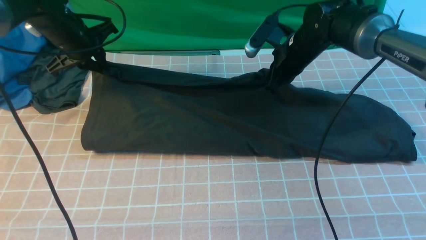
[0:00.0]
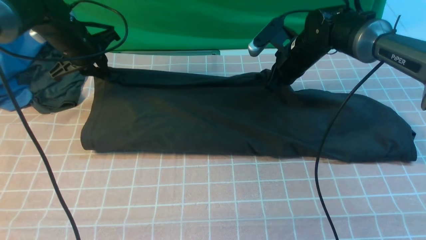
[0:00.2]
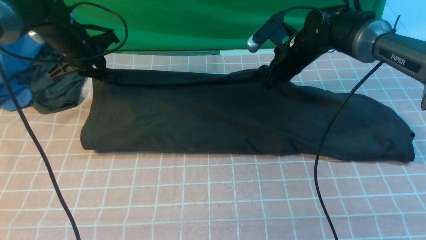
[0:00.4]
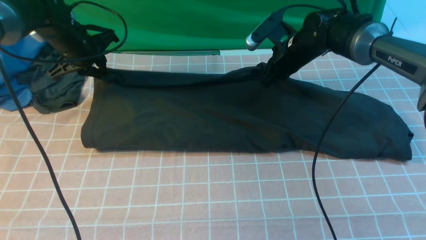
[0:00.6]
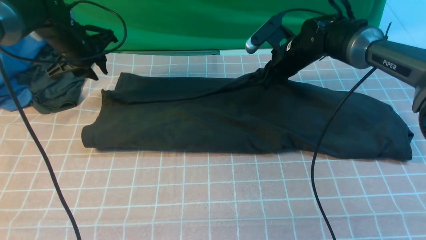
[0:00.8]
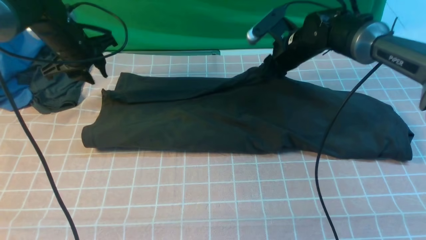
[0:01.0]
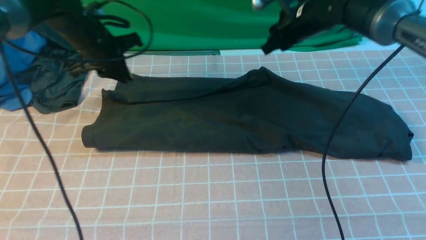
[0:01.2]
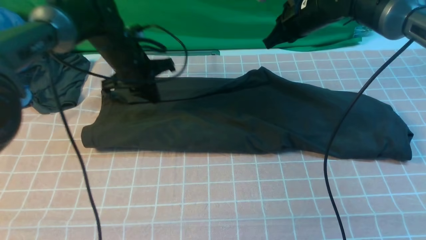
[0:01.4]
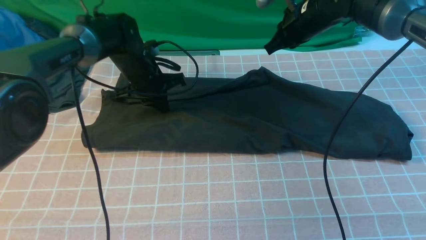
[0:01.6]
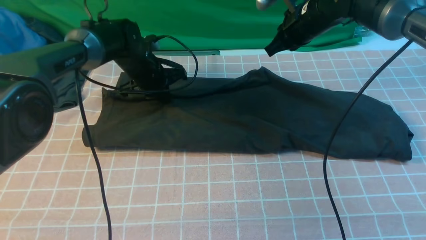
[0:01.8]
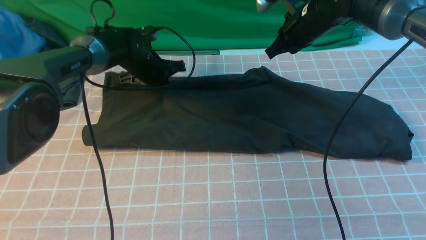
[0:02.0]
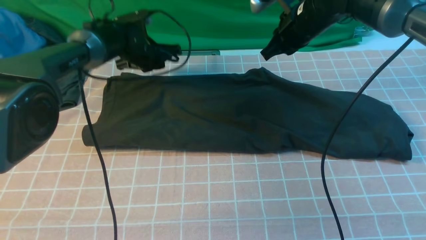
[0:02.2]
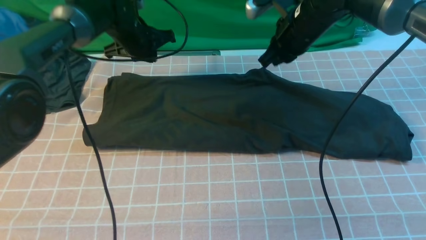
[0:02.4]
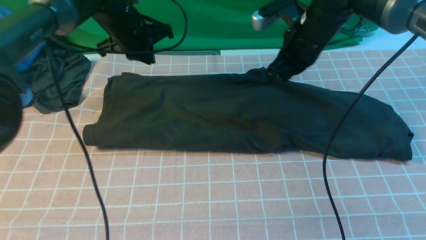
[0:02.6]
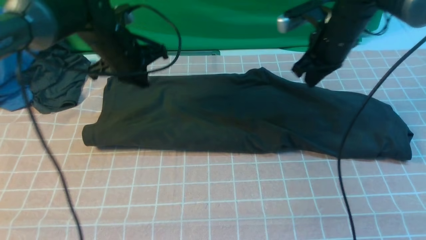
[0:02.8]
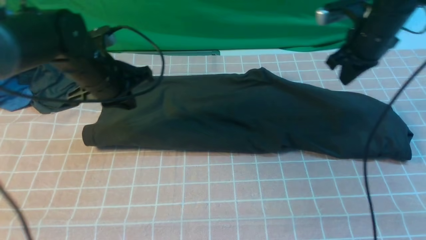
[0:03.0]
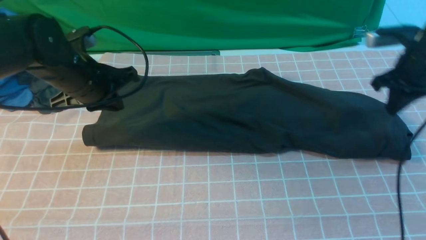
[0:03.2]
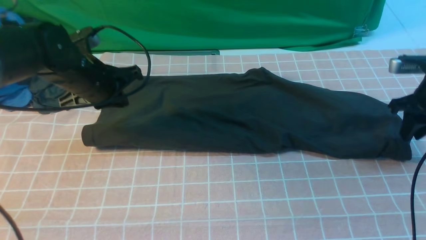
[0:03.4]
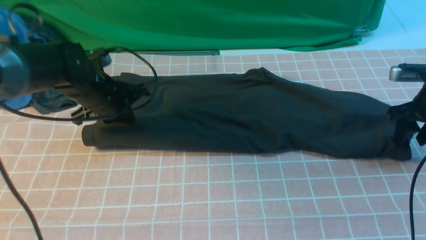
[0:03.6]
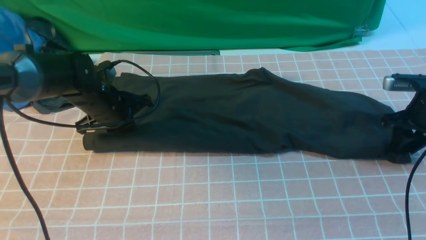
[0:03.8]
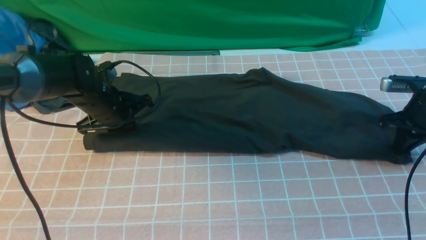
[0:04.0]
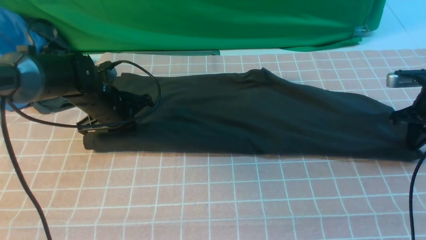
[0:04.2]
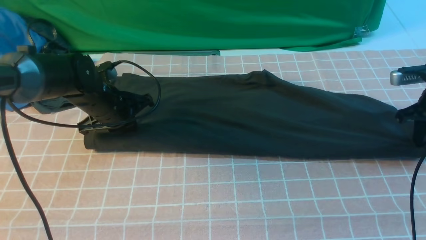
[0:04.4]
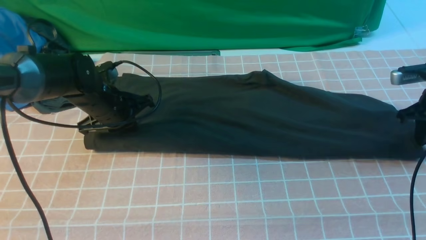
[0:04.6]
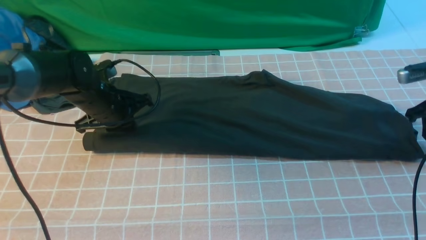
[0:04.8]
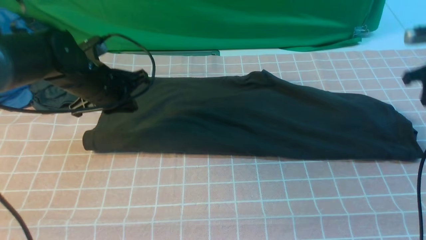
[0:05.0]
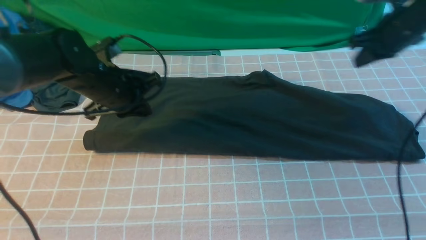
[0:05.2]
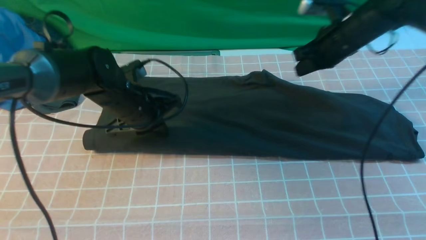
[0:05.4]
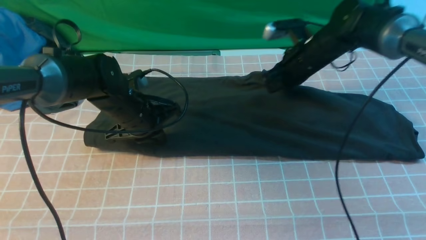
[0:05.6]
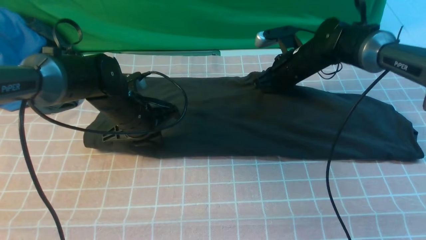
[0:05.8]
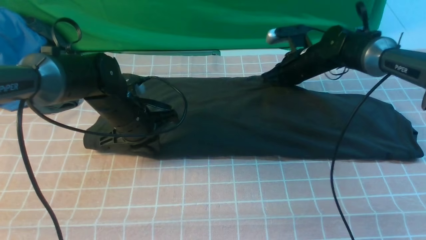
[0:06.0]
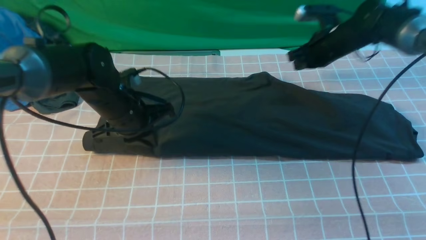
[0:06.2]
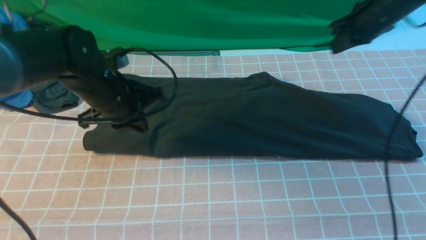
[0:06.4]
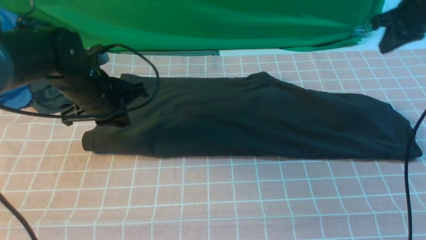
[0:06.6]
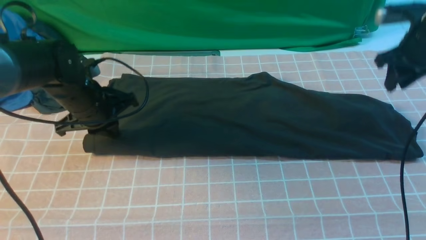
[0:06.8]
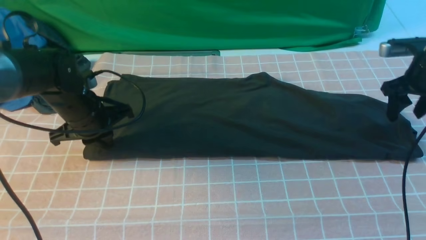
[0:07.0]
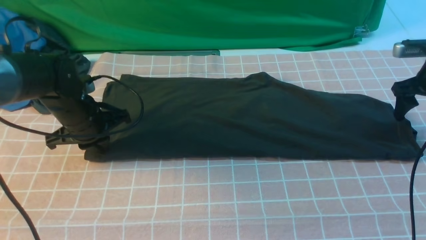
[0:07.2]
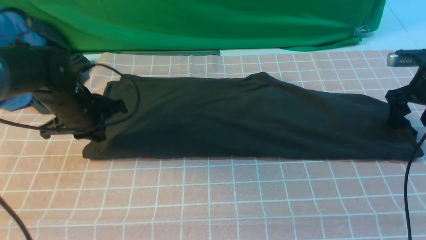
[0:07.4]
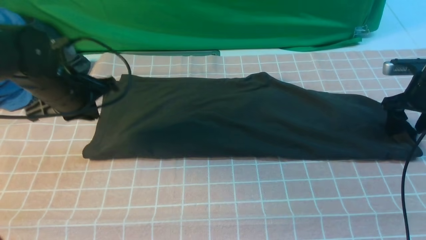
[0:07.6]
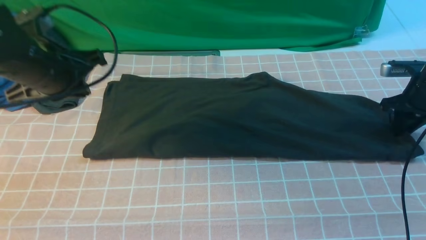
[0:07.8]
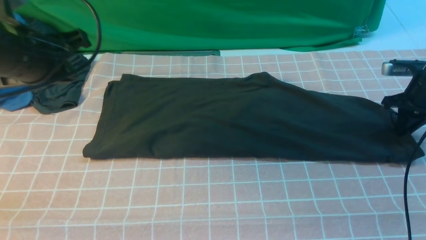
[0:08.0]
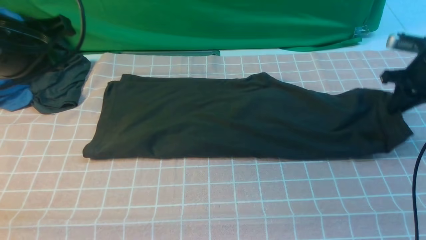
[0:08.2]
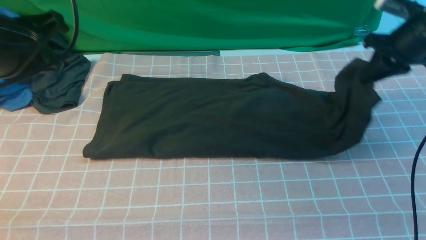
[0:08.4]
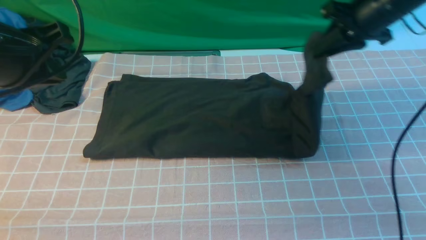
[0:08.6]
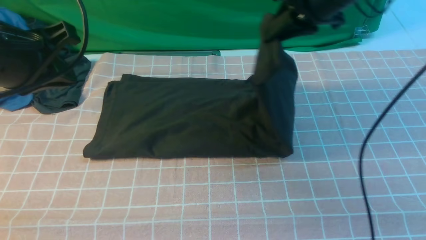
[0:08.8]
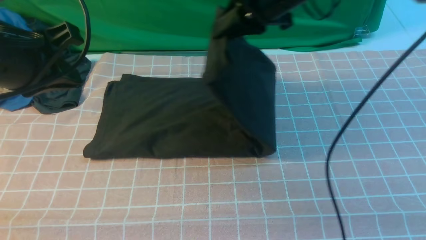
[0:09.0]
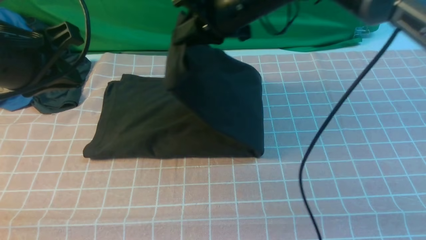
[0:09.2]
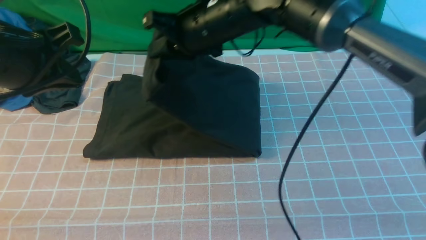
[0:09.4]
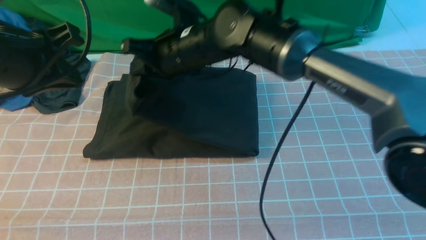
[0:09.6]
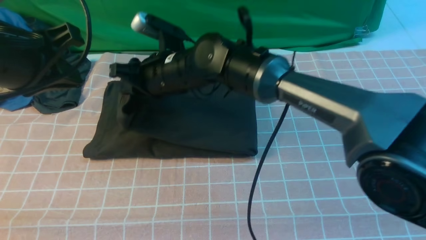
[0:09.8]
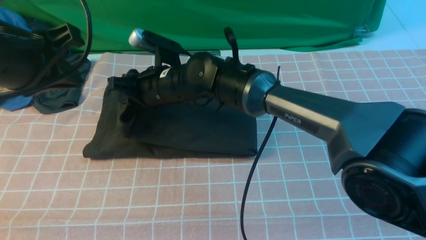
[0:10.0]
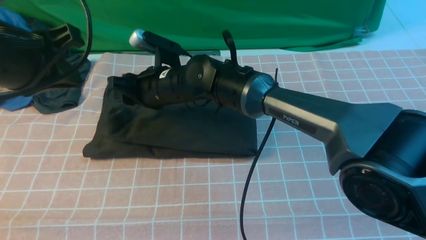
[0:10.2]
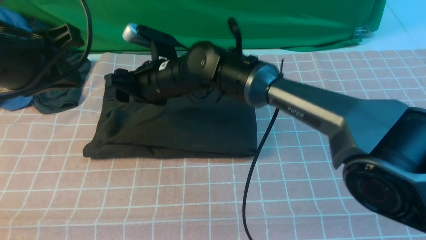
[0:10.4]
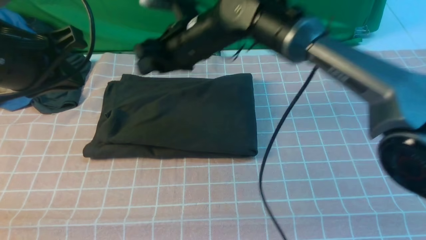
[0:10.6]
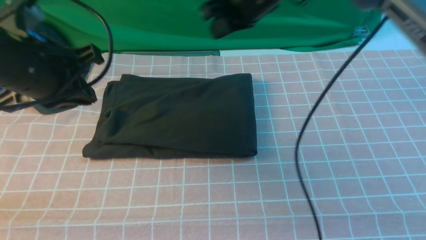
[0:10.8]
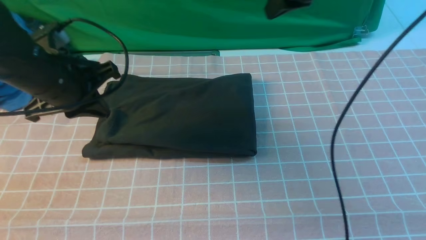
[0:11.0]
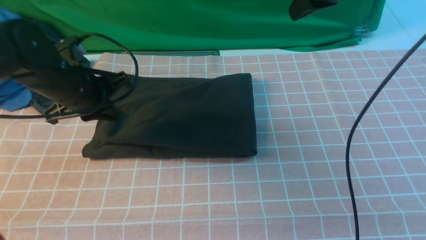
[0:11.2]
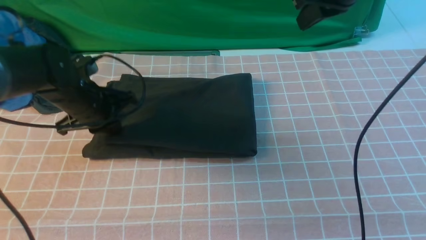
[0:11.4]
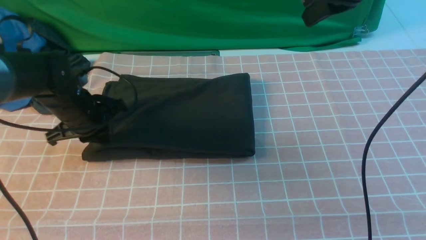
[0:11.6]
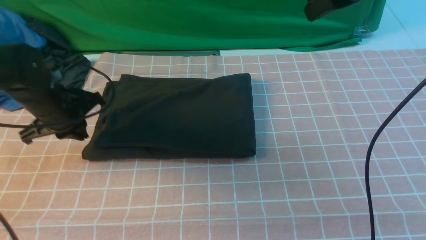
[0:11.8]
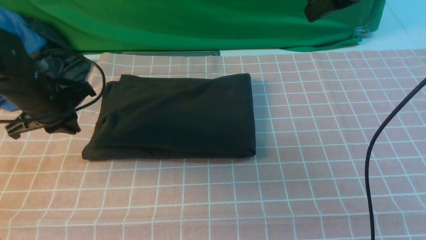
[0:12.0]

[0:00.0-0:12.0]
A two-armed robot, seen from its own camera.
Step, 0:00.0 to 0:02.2: use both arms to drag the lower edge of the fabric forward and fold it over the upper edge.
Step, 0:02.4 to 0:08.0: use the right arm to clamp the right edge of the fabric.
Step, 0:08.2 to 0:10.4: use the right arm to drag the right edge of the fabric to the left and folds it over the left edge.
0:00.0 to 0:01.6: The right gripper goes approximately 5 cm upward, and opens, then closes once more; the left gripper moves to the right and downward, some 15 cm.
0:01.6 to 0:03.0: The left gripper is displaced backward and upward by some 10 cm. The right gripper shifts about 10 cm to the right and backward.
0:03.0 to 0:04.4: The right gripper travels to the right and downward by roughly 15 cm, and opens and closes again. Meanwhile the left gripper heads downward, covering approximately 10 cm.
0:04.4 to 0:06.0: The right gripper travels to the left and forward by roughly 20 cm, while the left gripper shifts by some 5 cm.
0:06.0 to 0:07.6: The right gripper goes some 20 cm to the right and backward, and opens its fingers, while the left gripper moves up and down over approximately 10 cm, changing direction 2 times.
0:07.6 to 0:09.0: The left gripper moves upward and backward, about 15 cm. Meanwhile the right gripper shifts approximately 35 cm to the left and upward, and closes its fingers.
0:09.0 to 0:10.4: The right gripper heads to the left and downward, covering approximately 20 cm, and opens its fingers.
0:10.4 to 0:12.0: The left gripper heads downward and forward, covering about 20 cm, while the right gripper goes about 30 cm to the right and upward, and closes up.

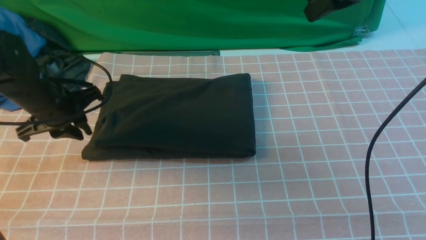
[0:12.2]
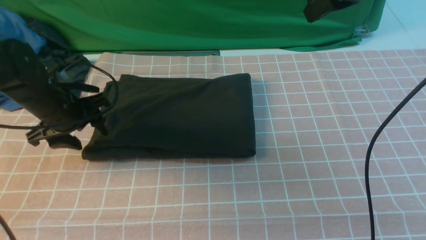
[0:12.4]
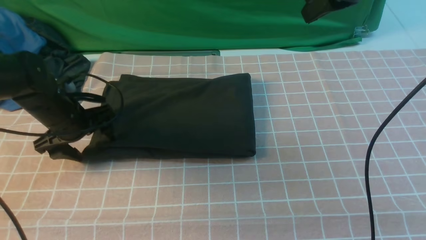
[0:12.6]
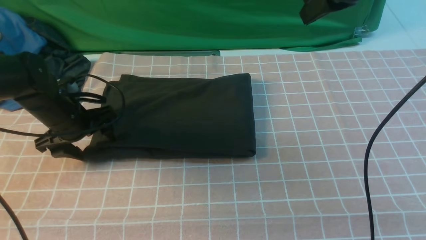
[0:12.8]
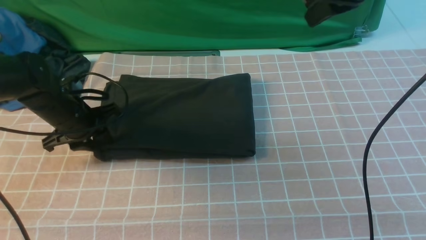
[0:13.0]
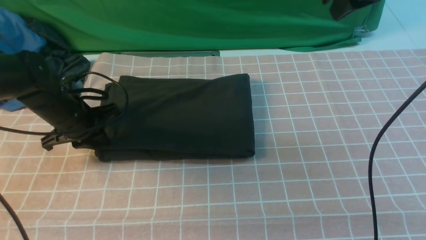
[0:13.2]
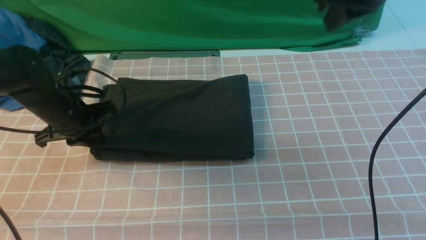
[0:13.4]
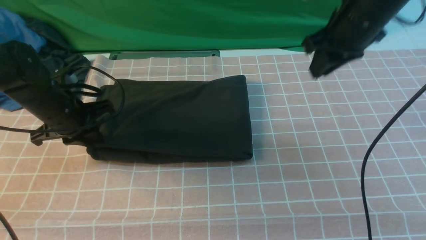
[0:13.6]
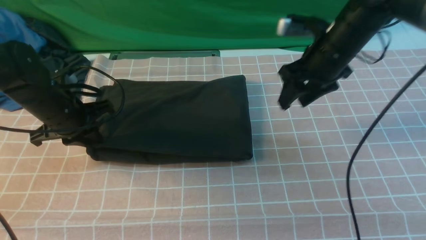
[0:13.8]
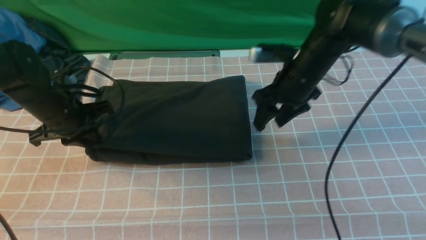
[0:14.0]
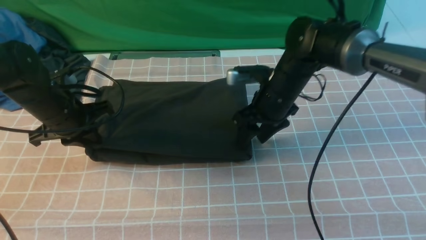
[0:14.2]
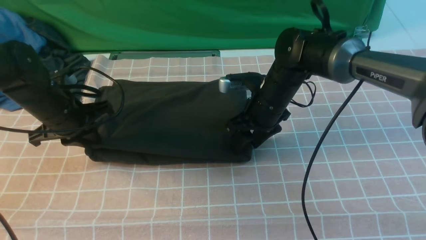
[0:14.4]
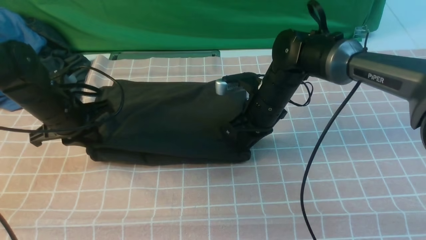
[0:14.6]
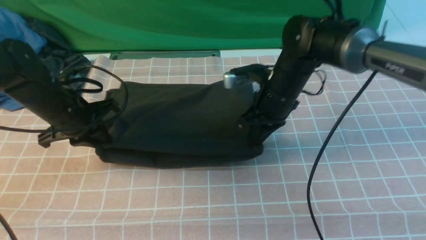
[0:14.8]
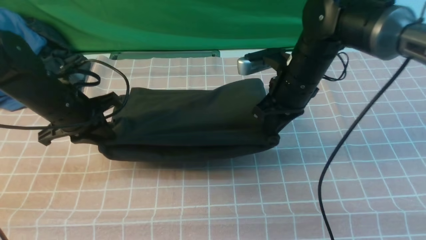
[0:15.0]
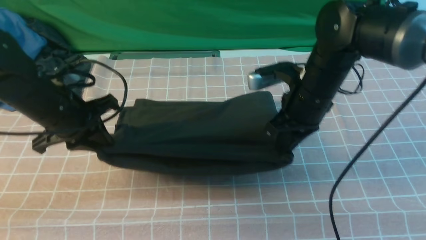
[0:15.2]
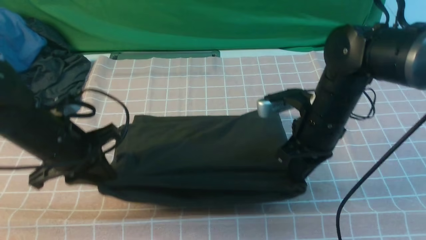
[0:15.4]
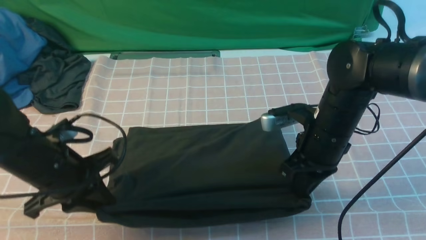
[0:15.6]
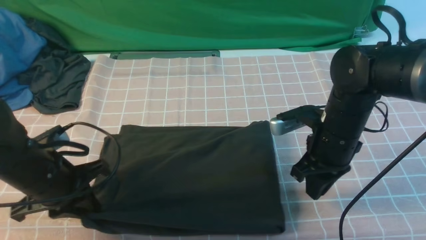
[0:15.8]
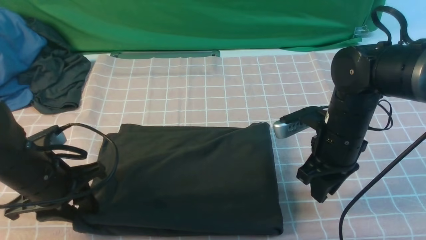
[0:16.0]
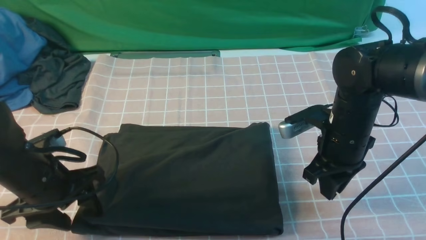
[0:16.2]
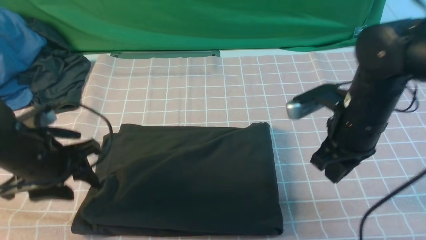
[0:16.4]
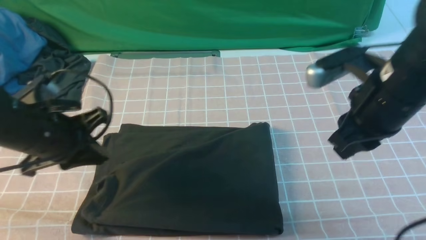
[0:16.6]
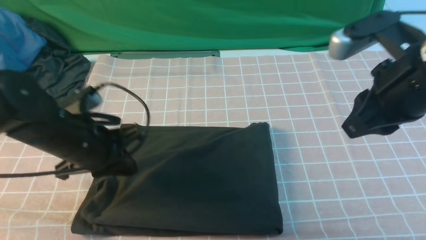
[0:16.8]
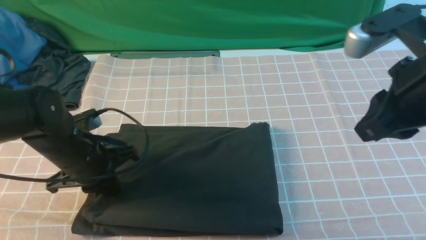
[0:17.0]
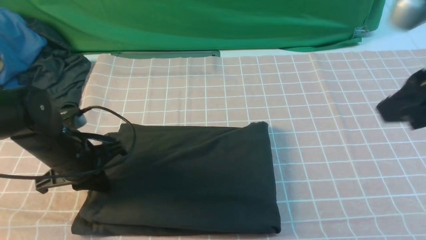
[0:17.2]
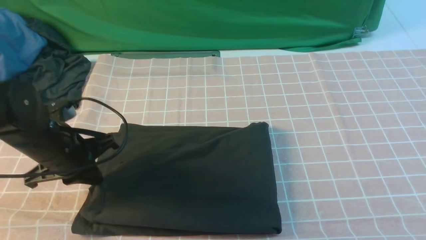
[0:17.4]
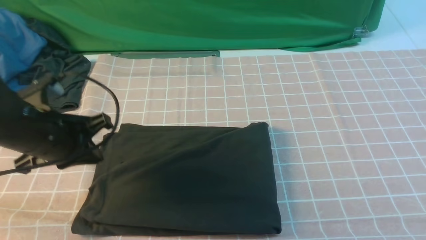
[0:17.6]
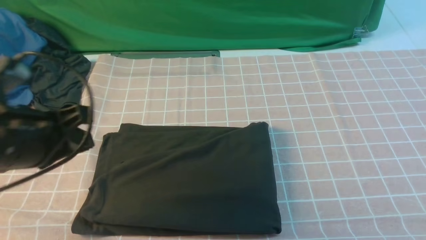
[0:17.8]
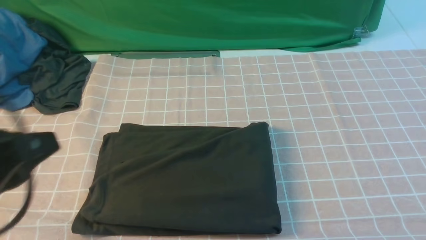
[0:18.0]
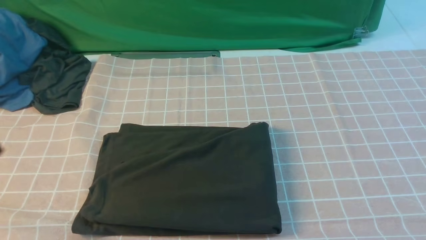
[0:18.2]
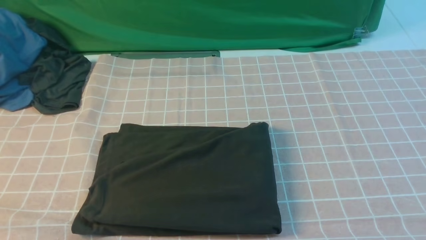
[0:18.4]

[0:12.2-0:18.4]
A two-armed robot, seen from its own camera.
0:12.2 to 0:13.8: The right gripper goes about 15 cm downward, and opens. The left gripper closes its fingers.
0:13.8 to 0:15.4: The two grippers go roughly 10 cm backward. The right gripper closes.
0:15.4 to 0:16.8: The right gripper is displaced upward and backward by approximately 15 cm. Meanwhile the left gripper opens, then closes again.
0:16.8 to 0:18.4: The left gripper shifts some 25 cm backward and upward; the right gripper heads backward and to the right, covering about 25 cm.
